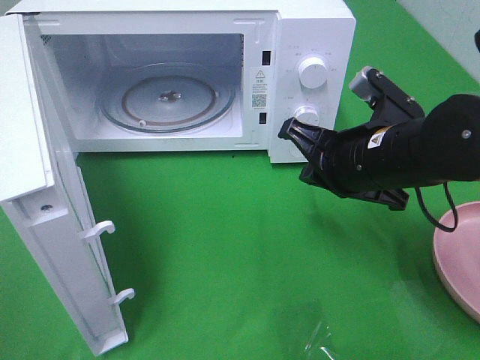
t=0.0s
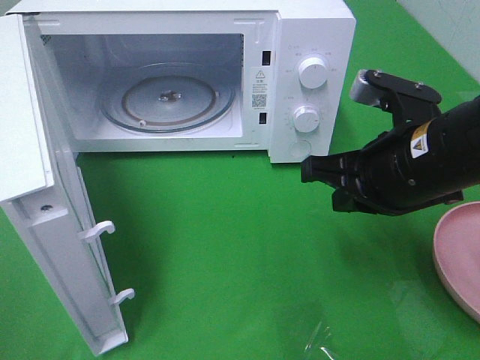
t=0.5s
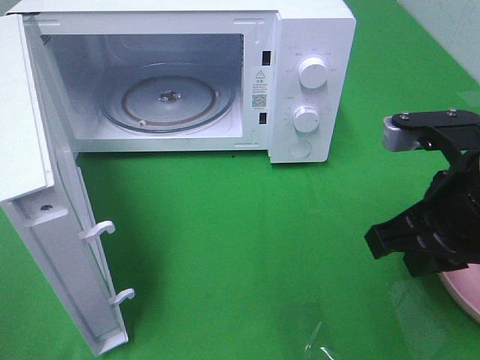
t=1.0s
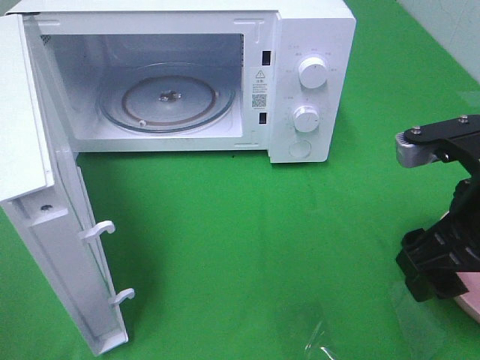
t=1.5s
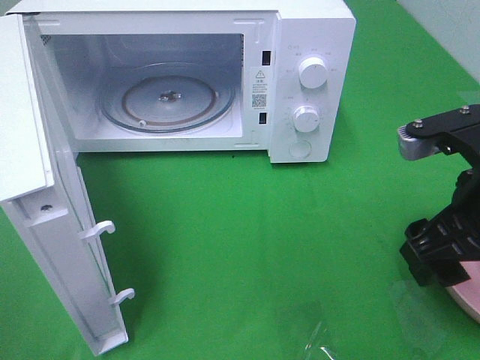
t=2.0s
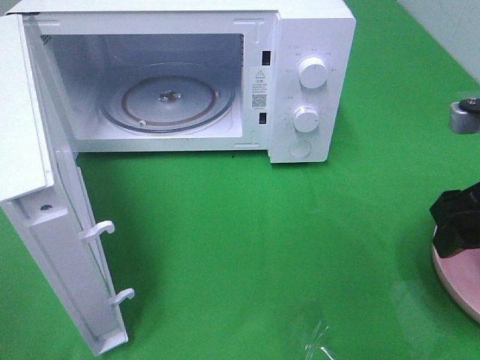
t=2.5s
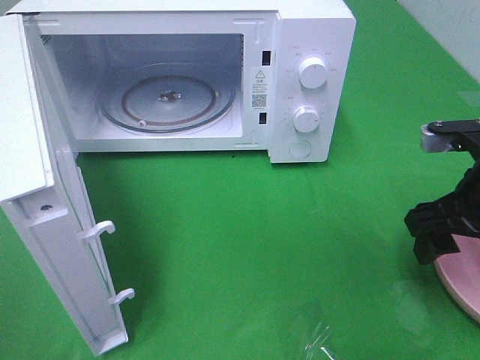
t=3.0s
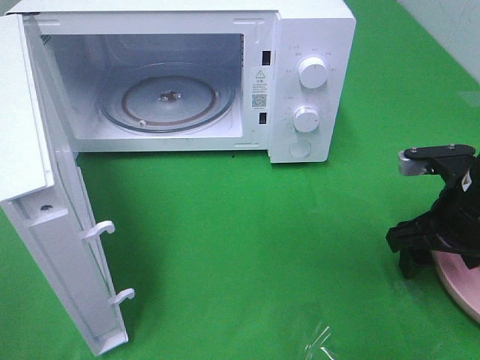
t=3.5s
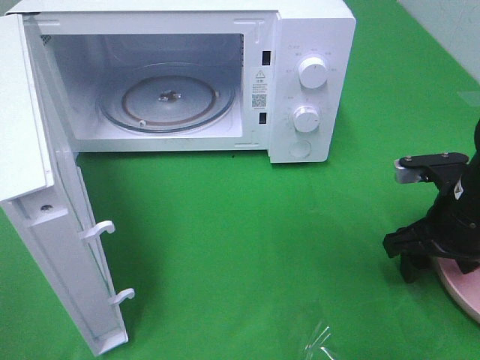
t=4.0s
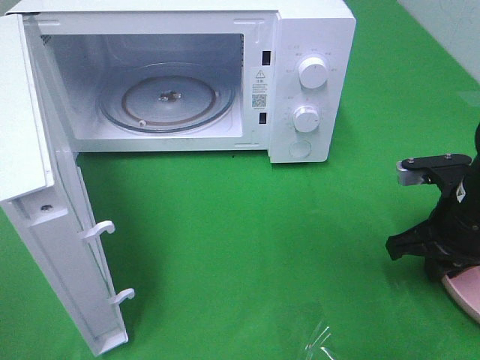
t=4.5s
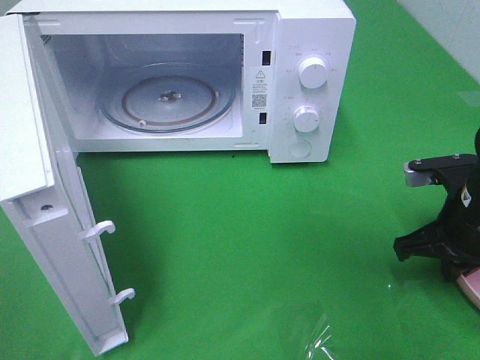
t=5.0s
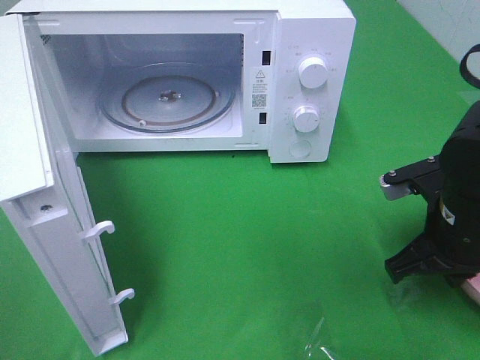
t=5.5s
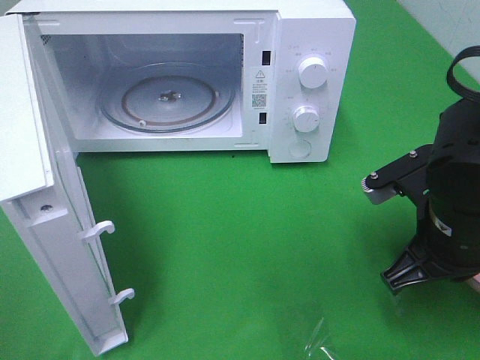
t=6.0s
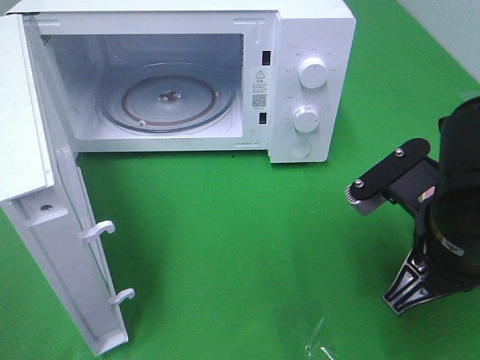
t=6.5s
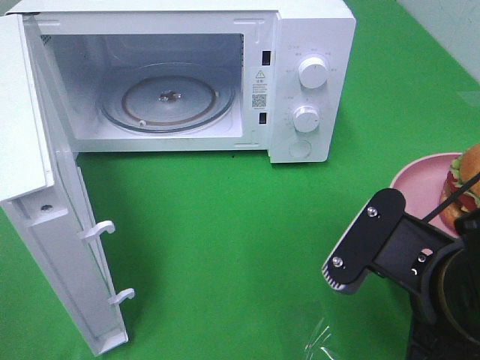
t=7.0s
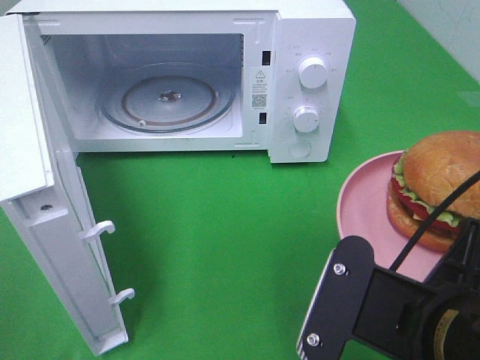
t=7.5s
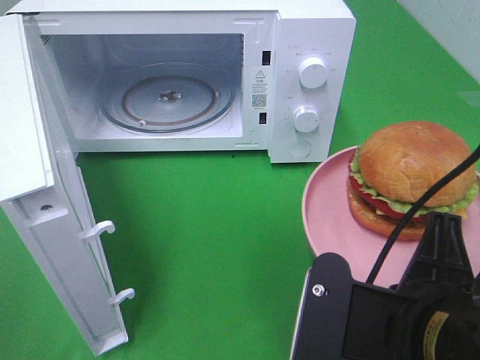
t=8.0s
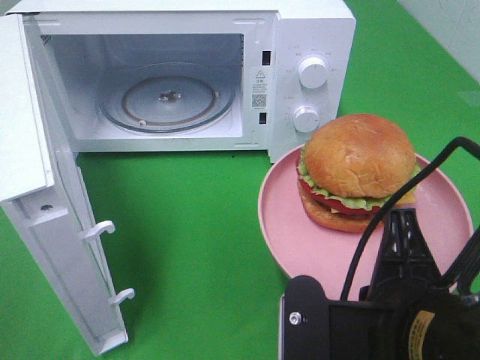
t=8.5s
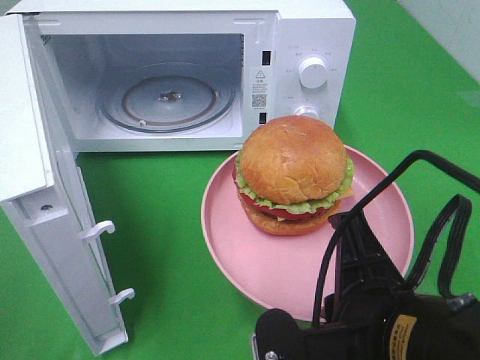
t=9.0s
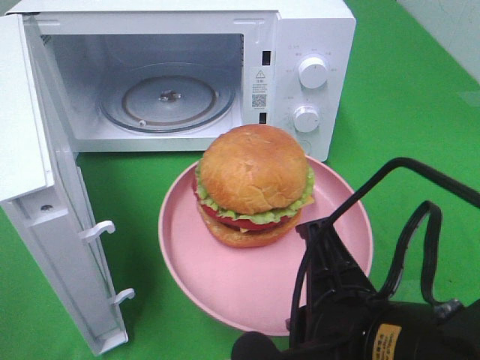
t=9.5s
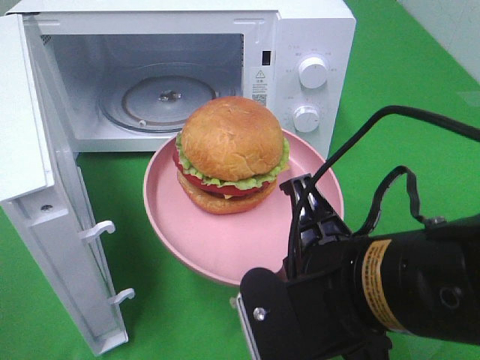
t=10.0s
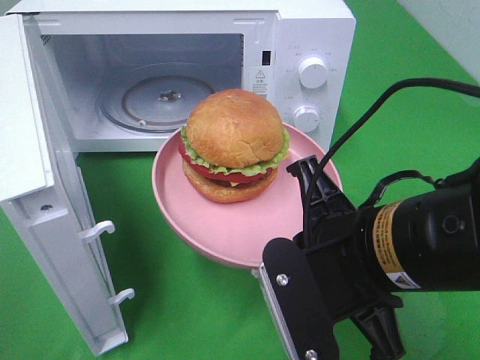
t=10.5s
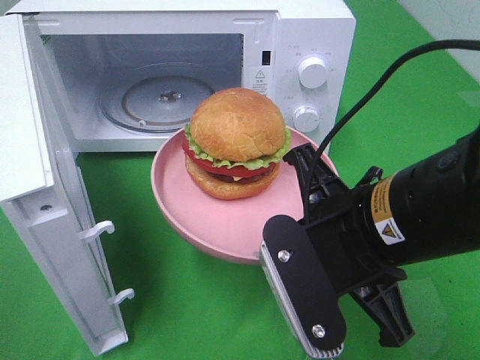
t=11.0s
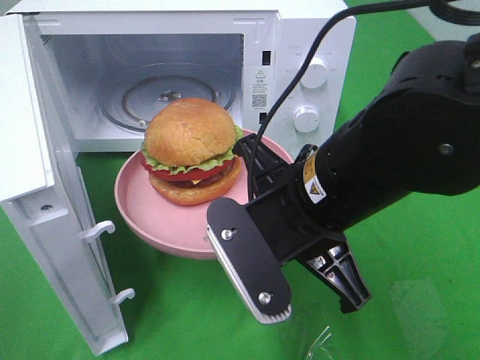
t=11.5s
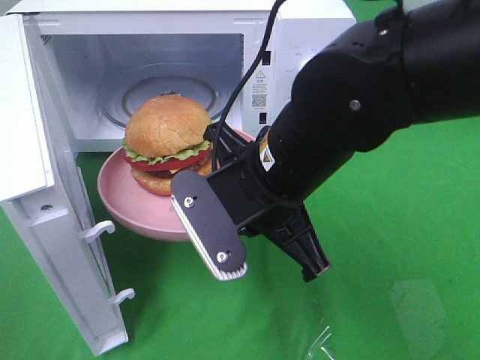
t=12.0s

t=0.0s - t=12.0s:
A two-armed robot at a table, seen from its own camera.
Task of the whole recording: Heat the burger.
Step, t=0.0s - t=4.5s: Right hand: grab the plate with the hamburger.
t=0.0s - t=2.0s: The right gripper moves backward and to the right, about 10 cm, and opens its fingers.
t=2.0s - t=4.0s: The right gripper is displaced downward and forward by about 10 cm.
t=4.0s - t=6.0s: The right gripper shifts approximately 5 cm to the left, and closes.
t=6.0s - t=8.0s: The right gripper travels backward and to the left by roughly 15 cm.
t=10.0s - t=12.0s: The right gripper goes some 10 cm forward.

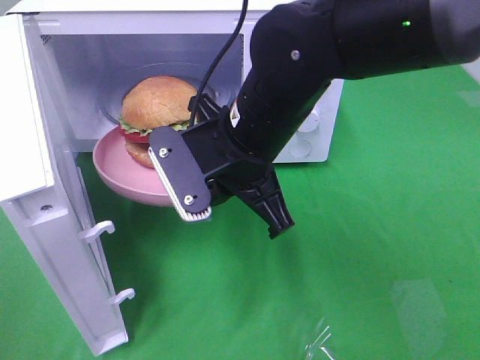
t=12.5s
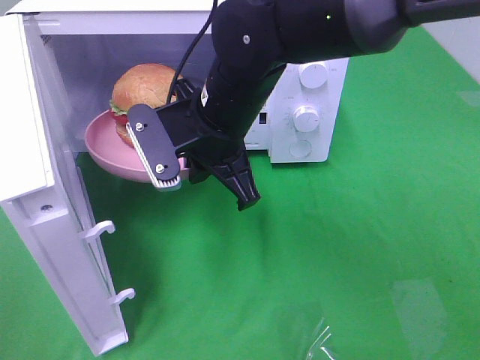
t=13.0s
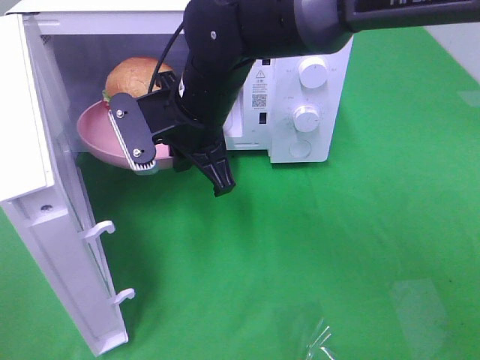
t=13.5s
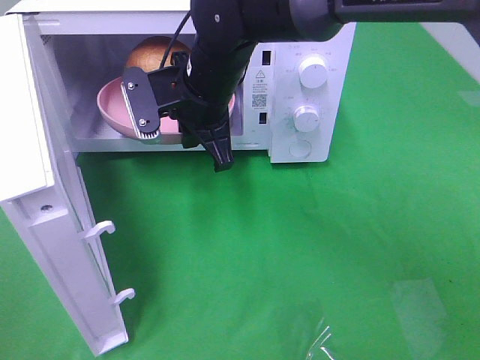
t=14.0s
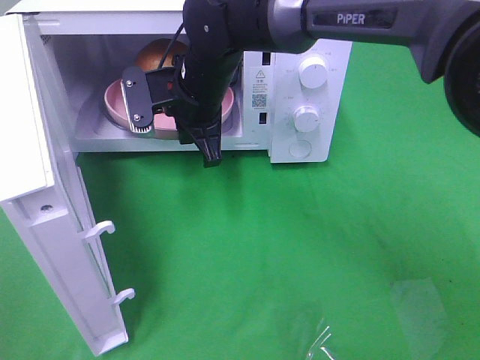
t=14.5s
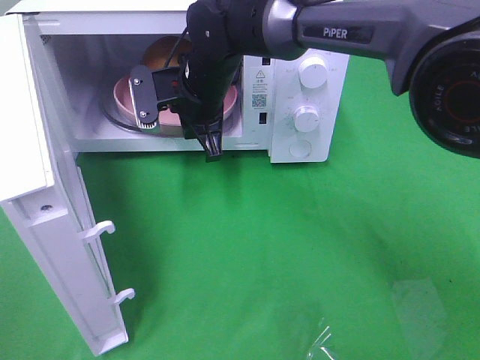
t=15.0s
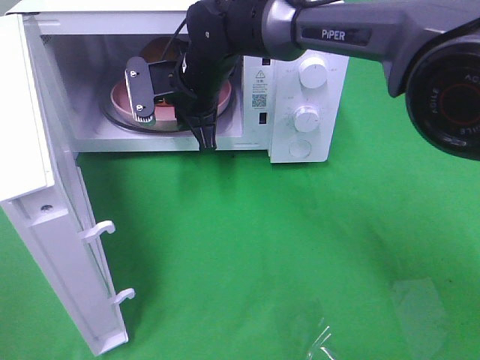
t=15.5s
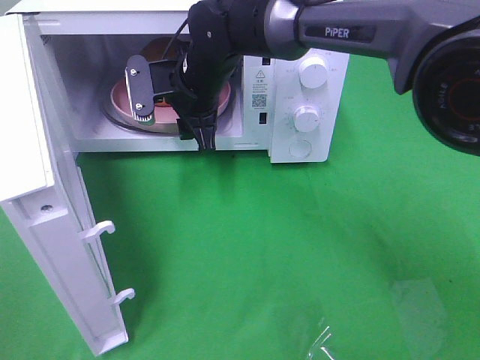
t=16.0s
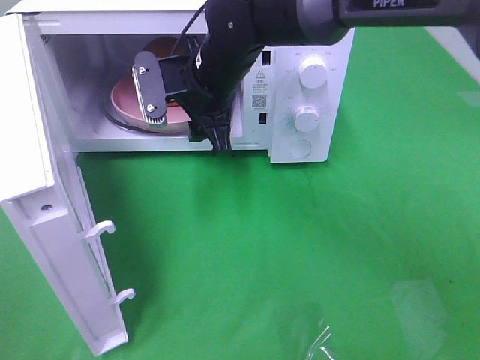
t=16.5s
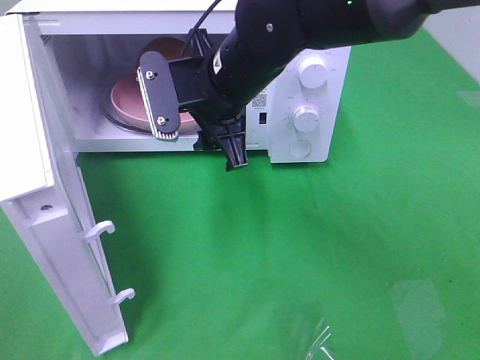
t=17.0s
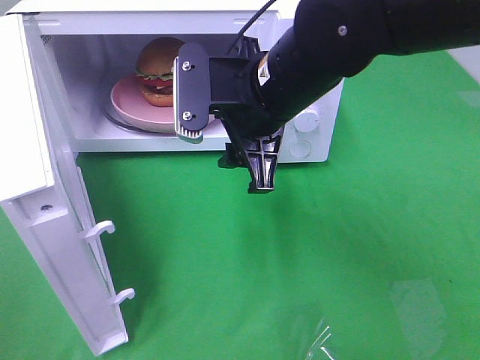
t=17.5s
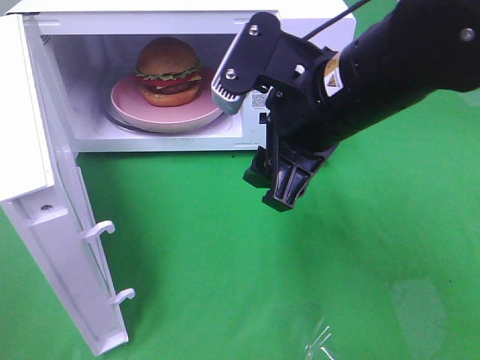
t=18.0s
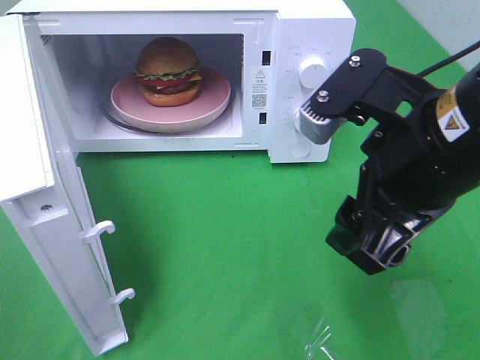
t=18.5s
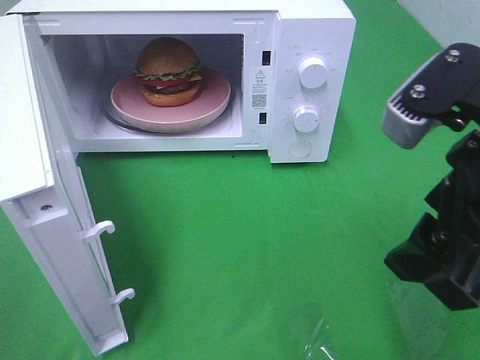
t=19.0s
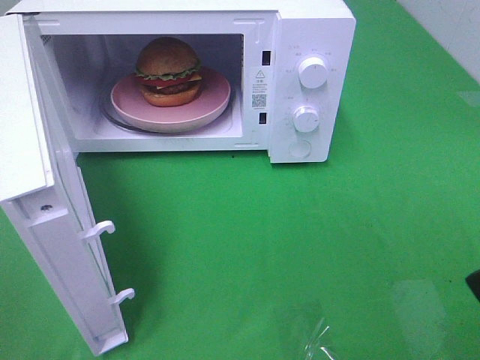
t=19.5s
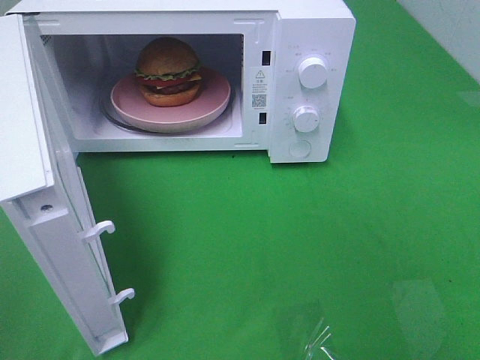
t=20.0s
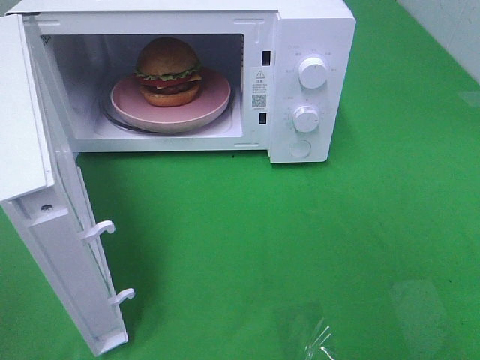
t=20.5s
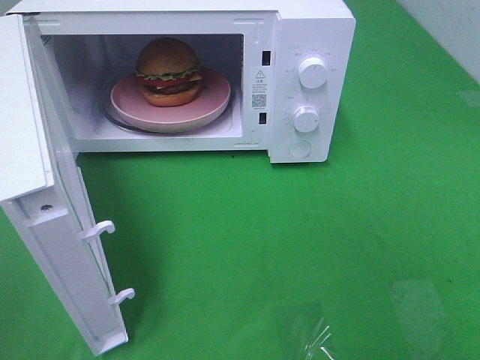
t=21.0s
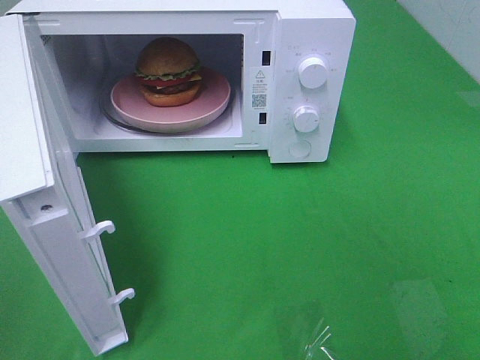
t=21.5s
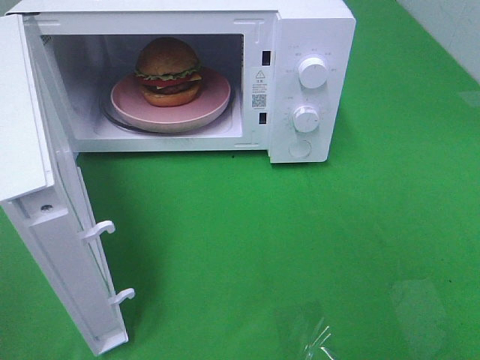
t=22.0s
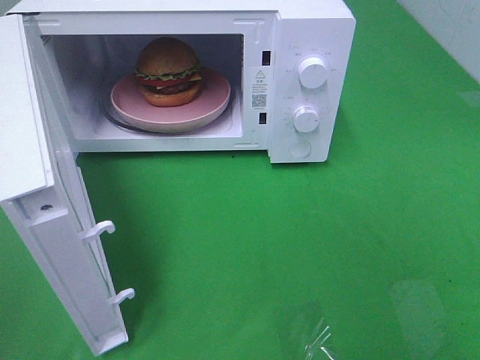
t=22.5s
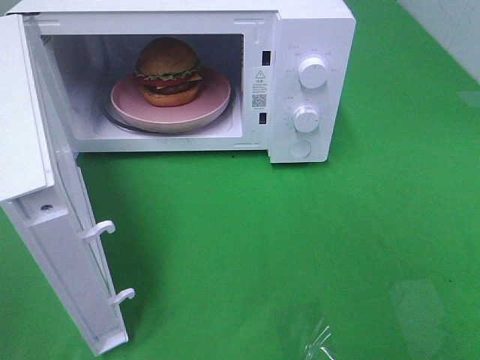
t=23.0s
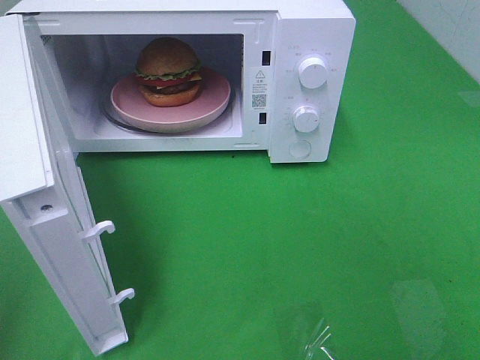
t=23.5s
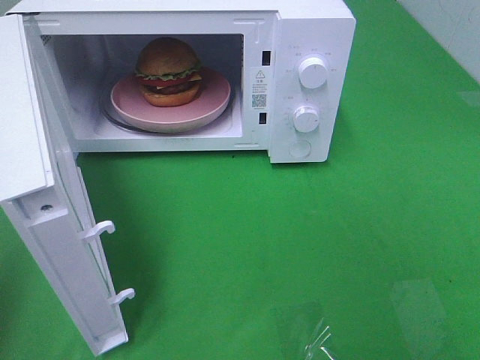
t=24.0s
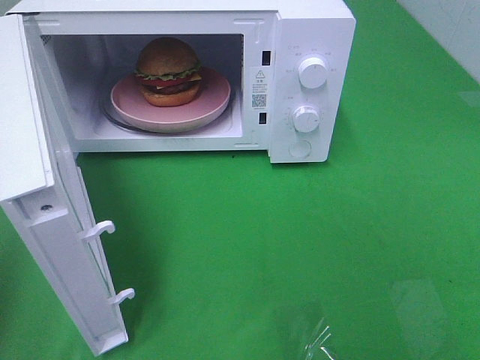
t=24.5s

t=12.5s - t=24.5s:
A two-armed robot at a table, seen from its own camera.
Task of the whole recording: Heat the burger.
Step, t=12.5s - t=16.5s: Right hand: place the plate in the microwave.
t=12.5s - t=14.5s: The right gripper is displaced forward and to the left by approximately 15 cm.
t=14.5s - t=16.5s: The right gripper opens its fingers.
t=16.5s - t=18.5s: The right gripper travels backward and to the right by some 25 cm.
t=18.5s - t=20.5s: The right gripper heads backward and to the right, covering some 25 cm.
t=20.5s - t=22.5s: The two grippers keep their place.

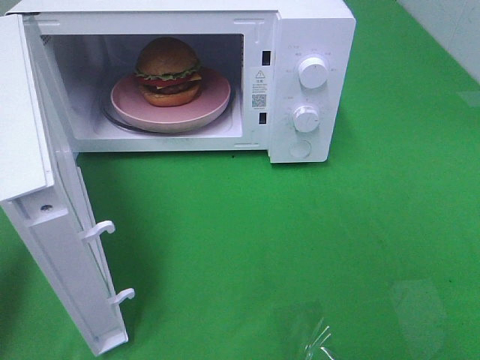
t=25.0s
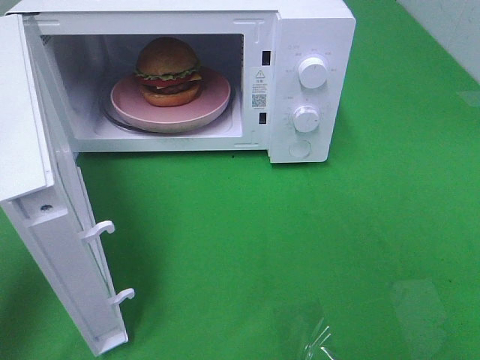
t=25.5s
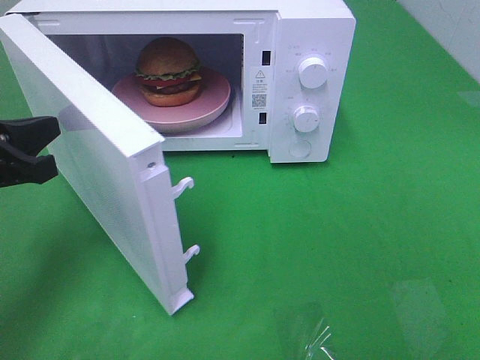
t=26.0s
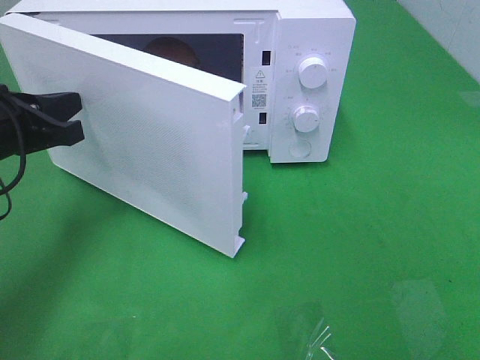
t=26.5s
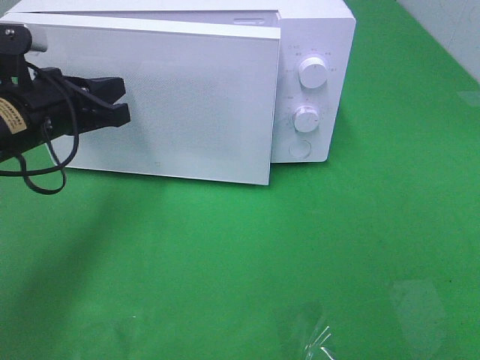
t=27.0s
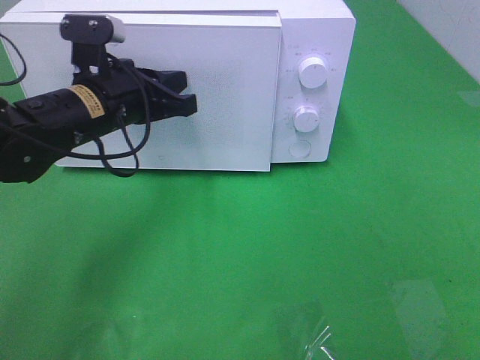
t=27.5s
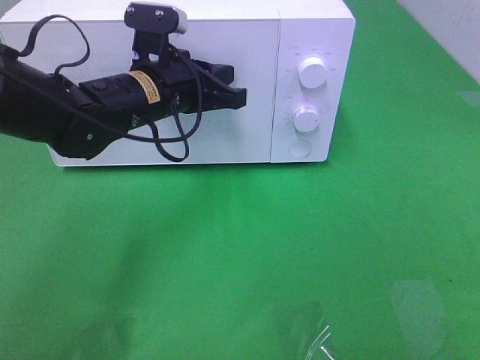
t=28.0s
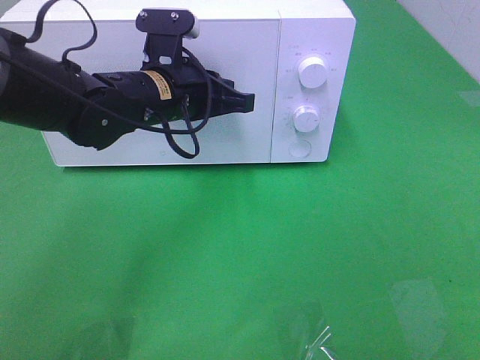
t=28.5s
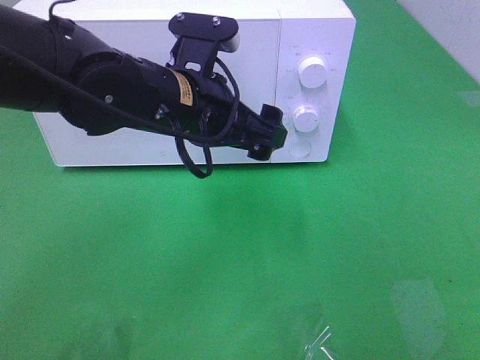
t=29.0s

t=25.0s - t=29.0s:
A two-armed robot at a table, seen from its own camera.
Task of the whole recording: Heat the burger.
Step, t=25.0s - t=29.0s: Left hand: close the microwave door.
t=25.0s - t=27.0s: The left gripper travels forward and to the right by some 20 cm.
t=27.0s - t=29.0s: The left gripper is displaced to the right by some 15 cm, and opens up.
